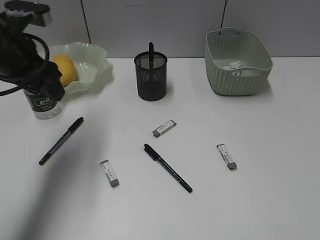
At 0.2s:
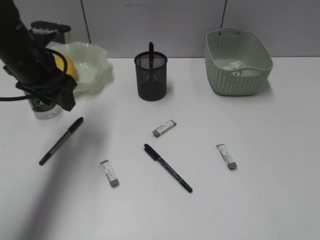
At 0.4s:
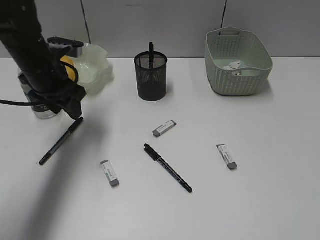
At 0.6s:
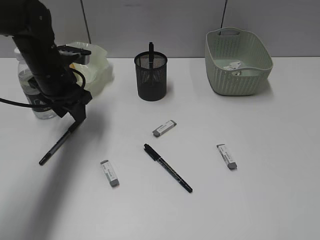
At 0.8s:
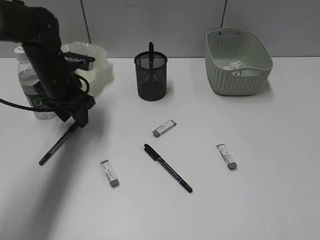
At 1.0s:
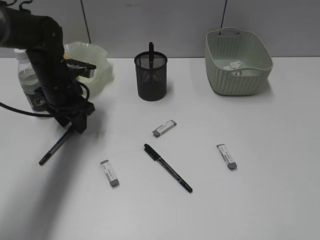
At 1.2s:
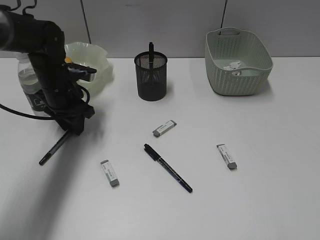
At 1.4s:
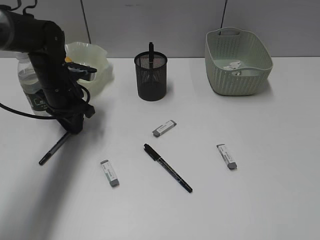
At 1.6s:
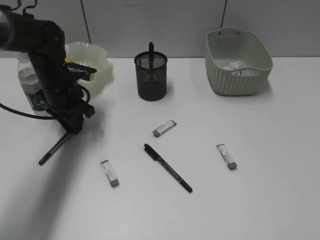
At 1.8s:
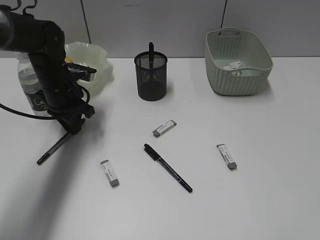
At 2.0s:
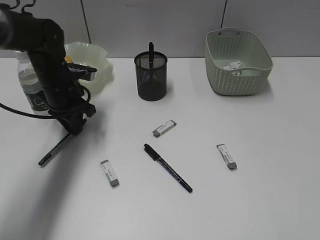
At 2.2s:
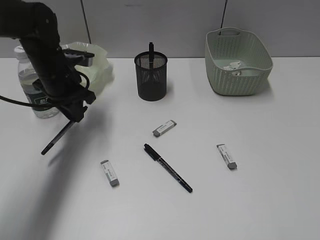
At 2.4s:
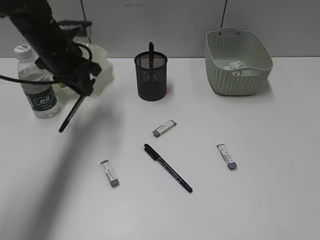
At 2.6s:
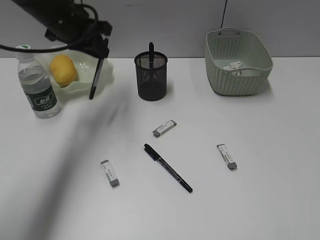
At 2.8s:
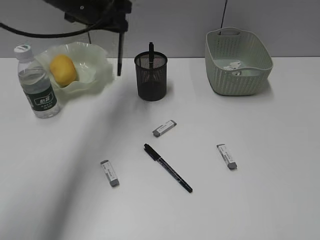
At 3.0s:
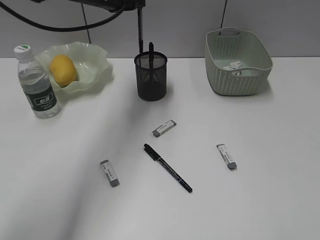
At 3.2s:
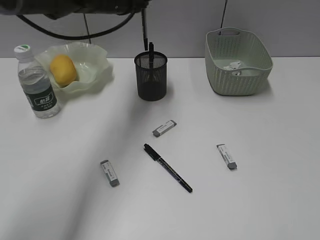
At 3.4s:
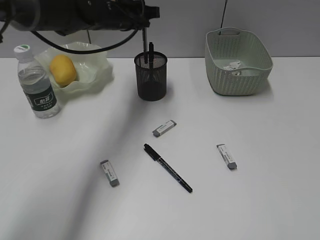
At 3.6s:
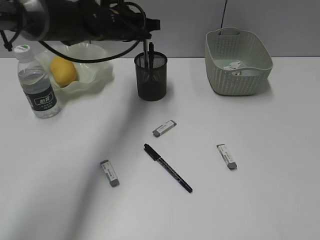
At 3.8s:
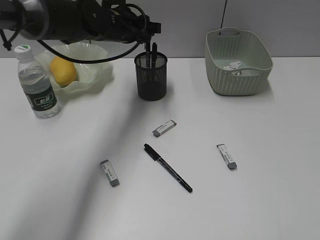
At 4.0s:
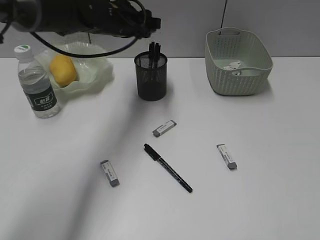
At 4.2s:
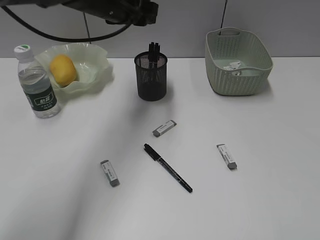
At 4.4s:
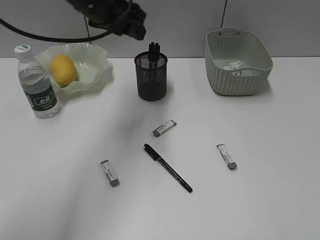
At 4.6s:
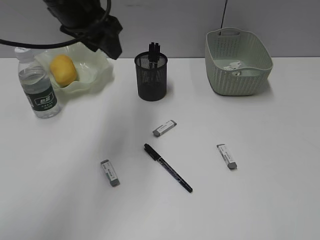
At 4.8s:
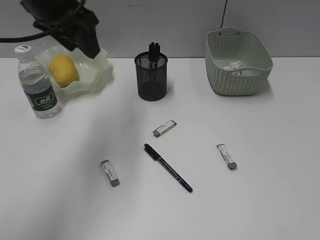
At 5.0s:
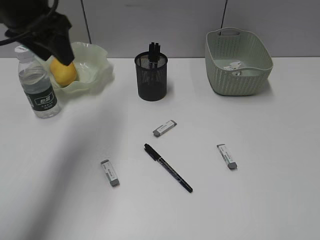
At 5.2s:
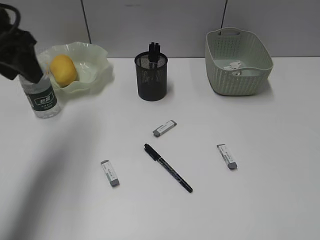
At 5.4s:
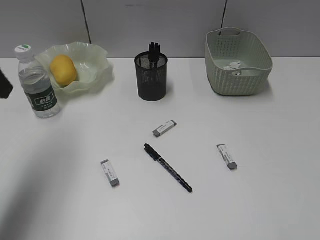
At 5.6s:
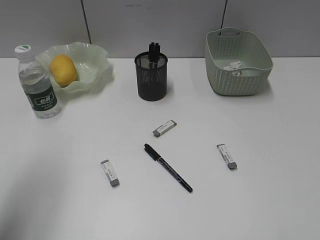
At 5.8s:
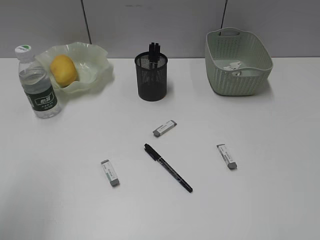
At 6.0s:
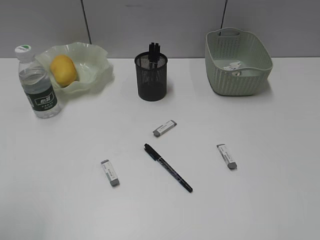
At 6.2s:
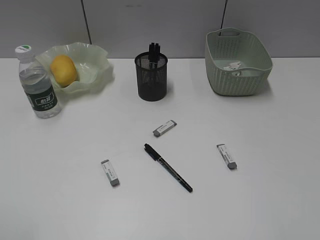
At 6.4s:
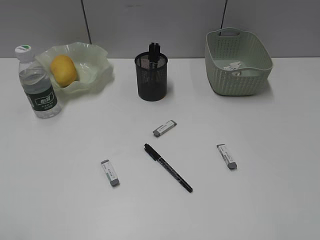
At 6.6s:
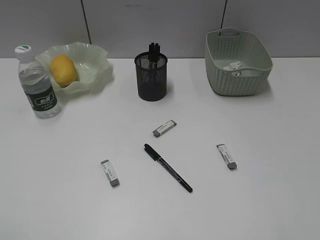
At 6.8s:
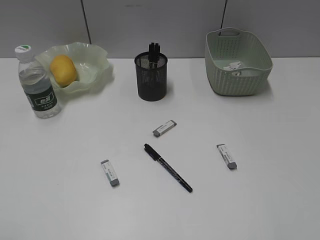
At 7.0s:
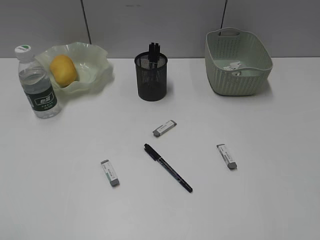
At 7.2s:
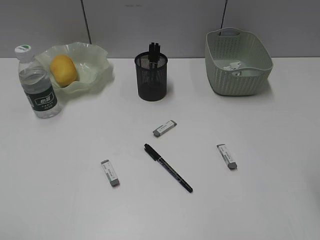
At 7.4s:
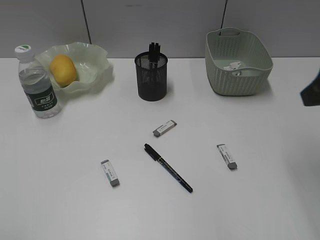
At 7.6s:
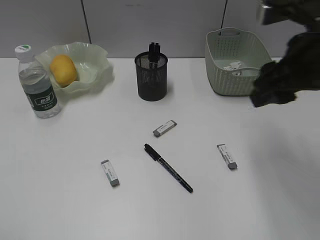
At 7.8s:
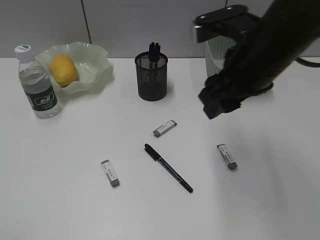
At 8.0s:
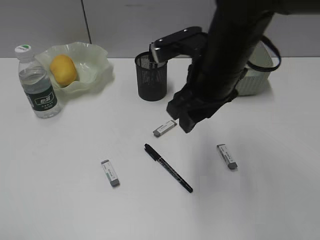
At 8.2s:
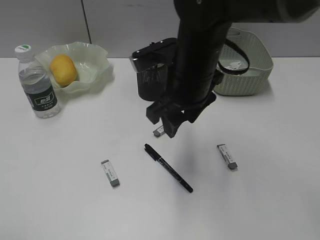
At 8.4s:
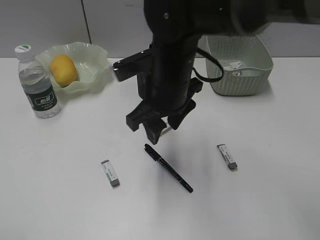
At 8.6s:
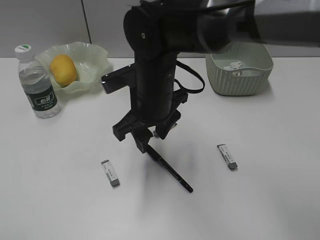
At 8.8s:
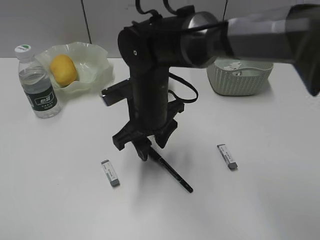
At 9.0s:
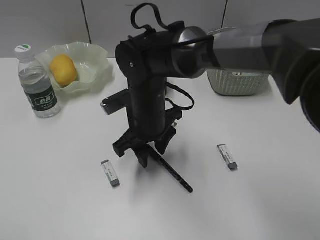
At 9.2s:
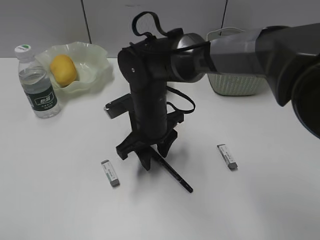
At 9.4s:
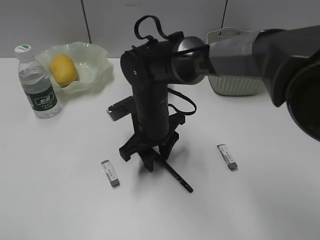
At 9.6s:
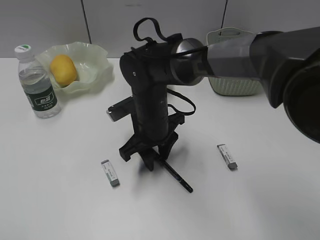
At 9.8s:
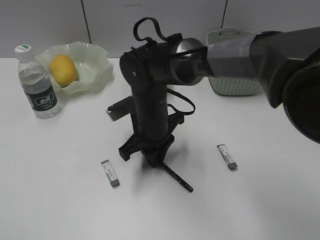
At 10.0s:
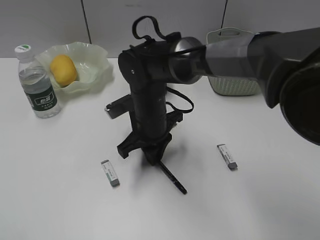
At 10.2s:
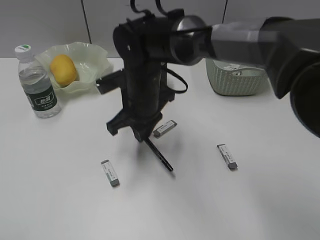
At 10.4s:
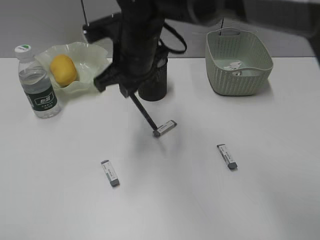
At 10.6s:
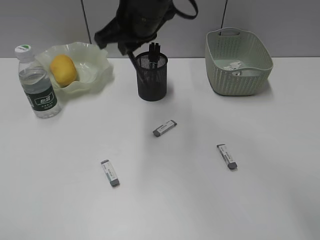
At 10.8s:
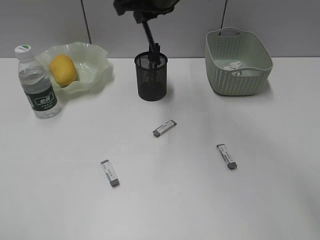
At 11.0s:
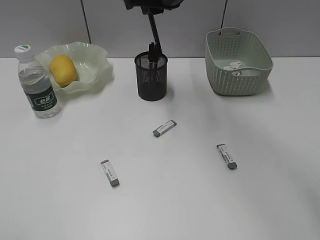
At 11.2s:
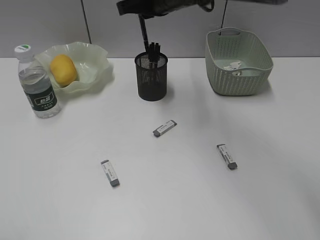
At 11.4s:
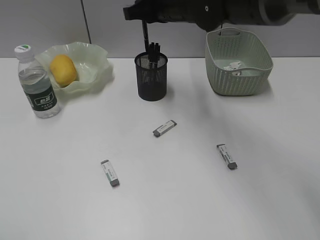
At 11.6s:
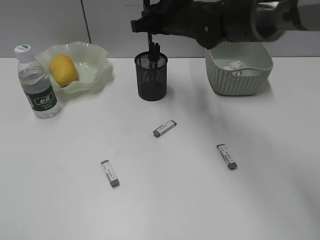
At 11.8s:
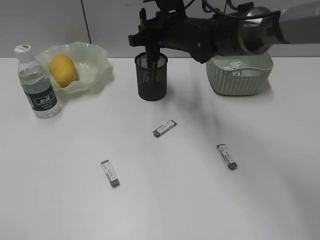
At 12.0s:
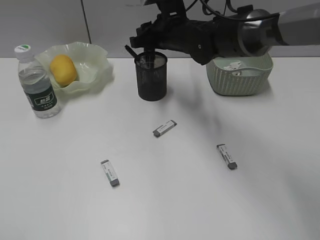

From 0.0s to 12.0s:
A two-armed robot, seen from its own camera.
Step, from 2.0s to 3.8s: Place the black pen in pen holder with left gripper.
Step, from 4.0s to 9.8s: Grasp the black pen with right gripper.
From 0.0s to 1.6s: The left gripper is displaced downward and forward by some 15 cm, and closes up.
From 1.6s to 3.0s: The left gripper moves upward and to the right, about 20 cm.
From 3.0s to 4.4s: The left gripper moves some 5 cm downward and comes back, and opens its fingers.
From 4.4s to 6.0s: The left gripper shifts about 40 cm backward and to the left.
From 6.0s to 7.6s: The right gripper travels forward and to the left by roughly 25 cm.
From 7.6s to 9.0s: The right gripper heads to the left and downward, covering about 25 cm.
From 9.0s to 10.4s: The right gripper heads upward, covering about 10 cm, and closes up.
From 10.4s to 12.0s: The right gripper moves forward and to the right, roughly 10 cm, moves some 10 cm upward and comes back, and opens up.

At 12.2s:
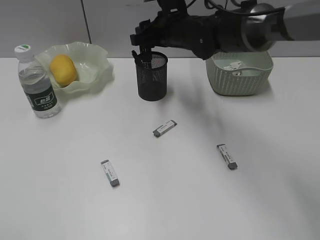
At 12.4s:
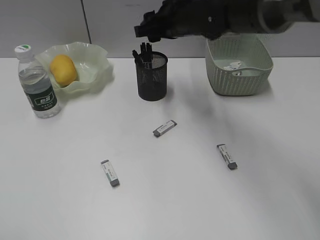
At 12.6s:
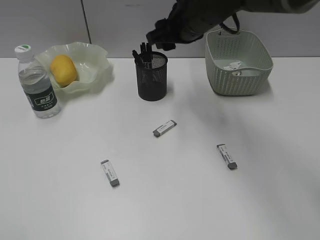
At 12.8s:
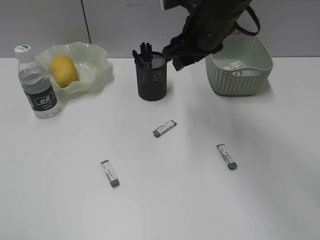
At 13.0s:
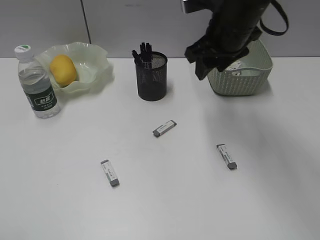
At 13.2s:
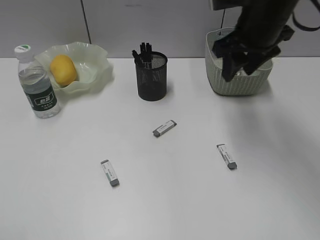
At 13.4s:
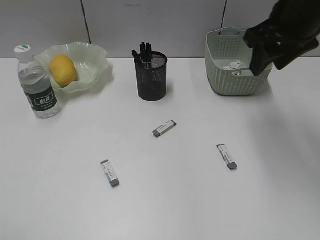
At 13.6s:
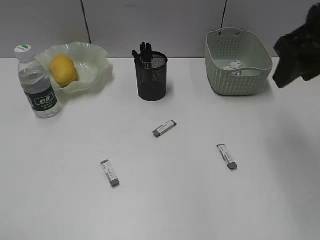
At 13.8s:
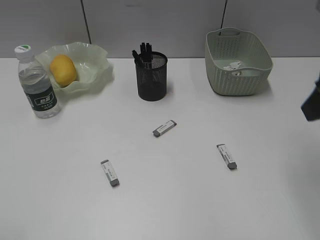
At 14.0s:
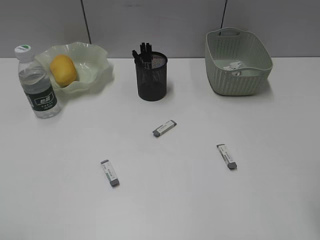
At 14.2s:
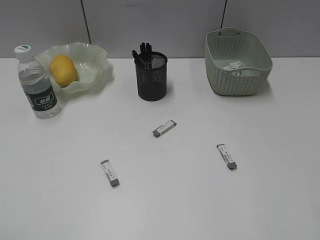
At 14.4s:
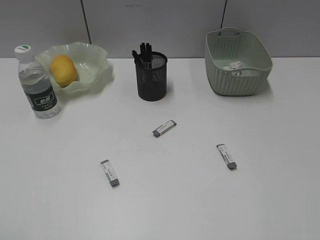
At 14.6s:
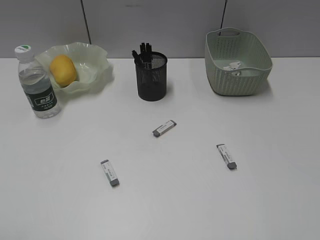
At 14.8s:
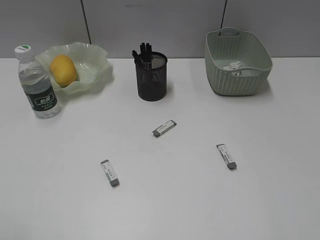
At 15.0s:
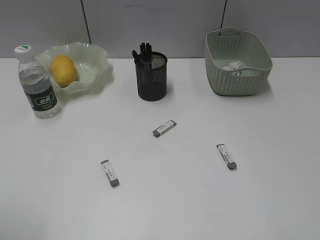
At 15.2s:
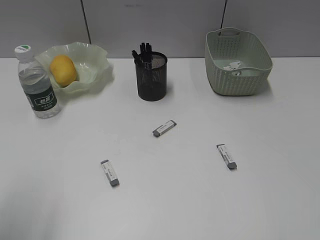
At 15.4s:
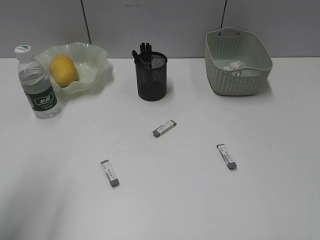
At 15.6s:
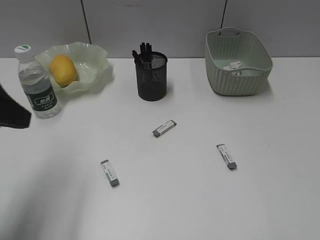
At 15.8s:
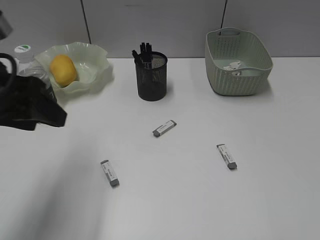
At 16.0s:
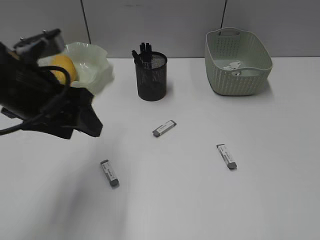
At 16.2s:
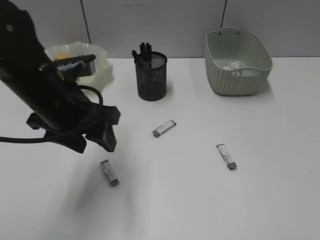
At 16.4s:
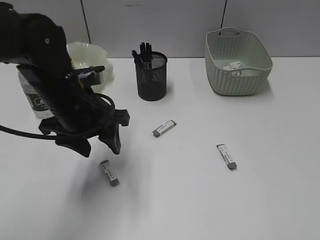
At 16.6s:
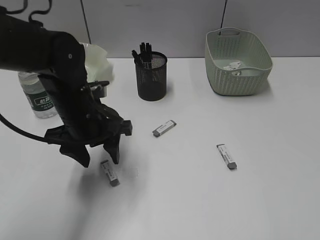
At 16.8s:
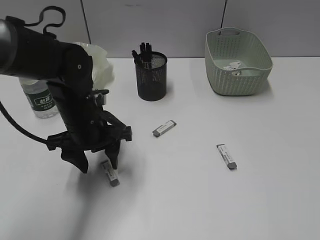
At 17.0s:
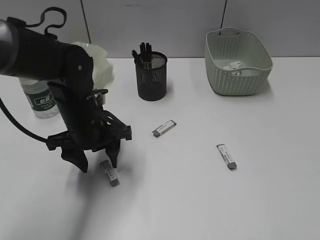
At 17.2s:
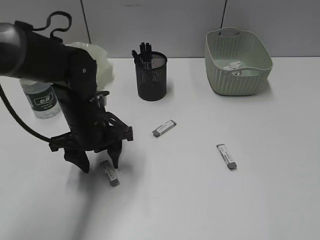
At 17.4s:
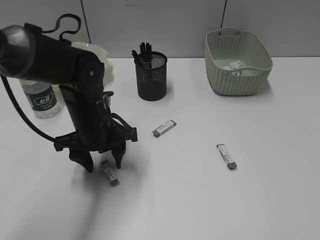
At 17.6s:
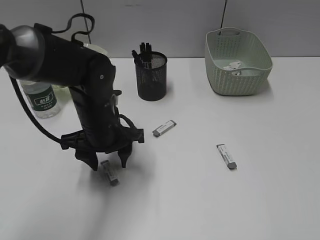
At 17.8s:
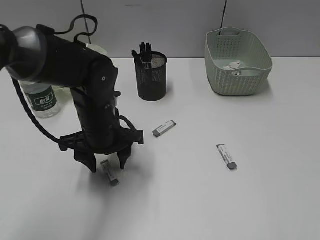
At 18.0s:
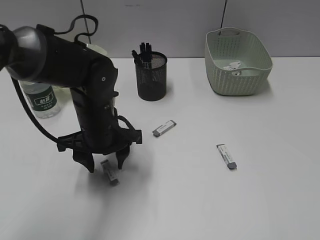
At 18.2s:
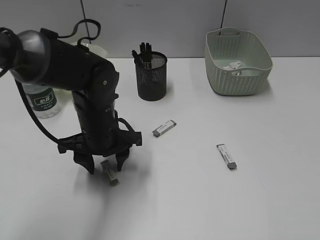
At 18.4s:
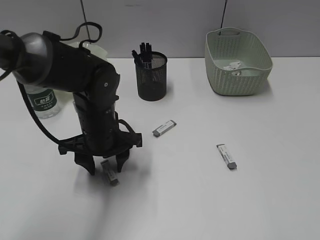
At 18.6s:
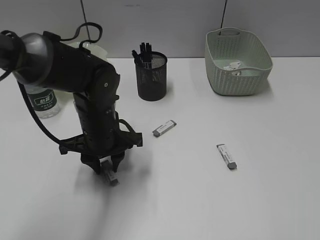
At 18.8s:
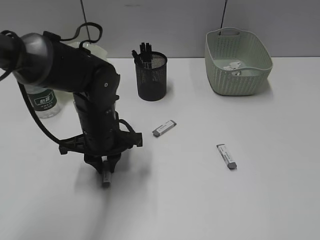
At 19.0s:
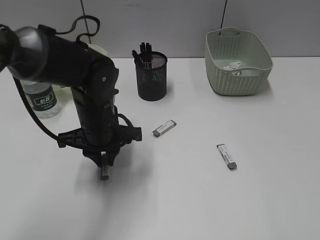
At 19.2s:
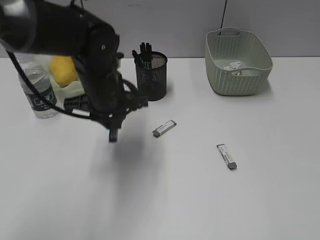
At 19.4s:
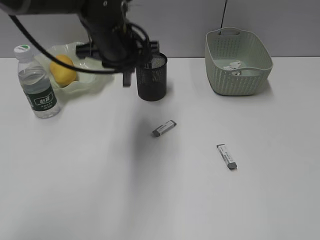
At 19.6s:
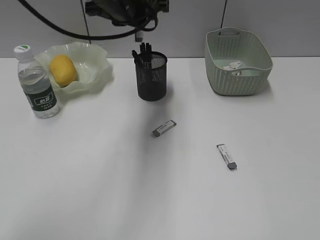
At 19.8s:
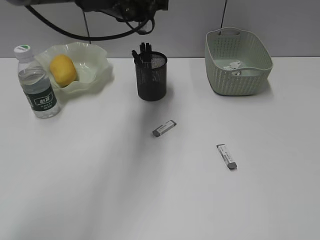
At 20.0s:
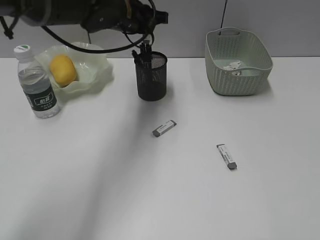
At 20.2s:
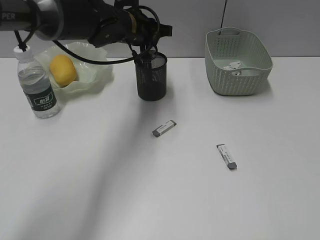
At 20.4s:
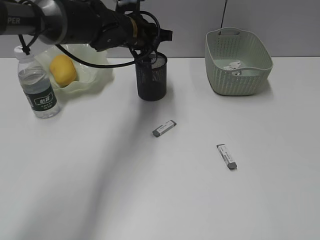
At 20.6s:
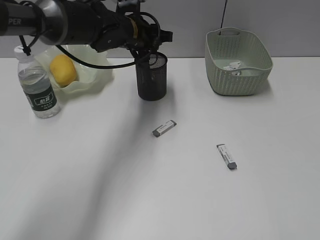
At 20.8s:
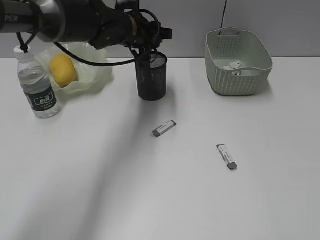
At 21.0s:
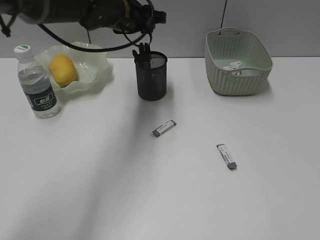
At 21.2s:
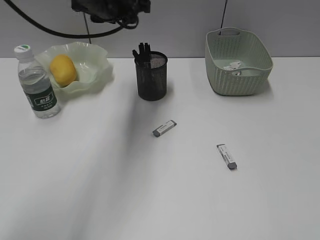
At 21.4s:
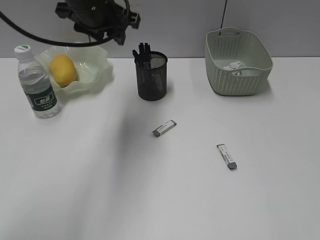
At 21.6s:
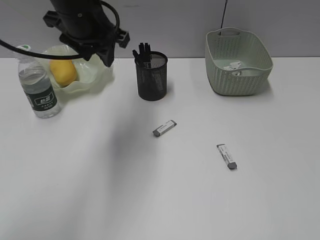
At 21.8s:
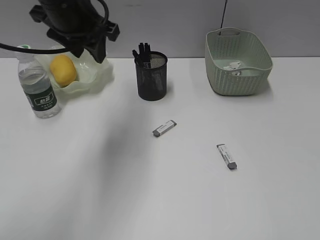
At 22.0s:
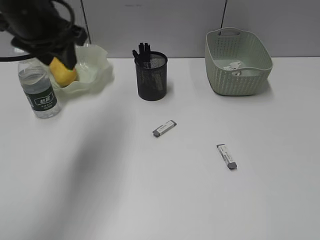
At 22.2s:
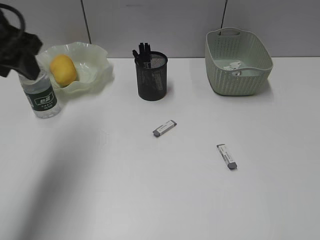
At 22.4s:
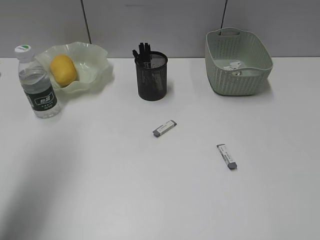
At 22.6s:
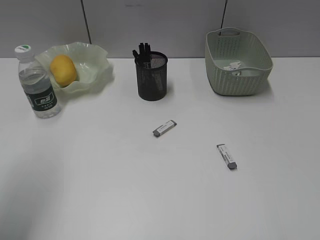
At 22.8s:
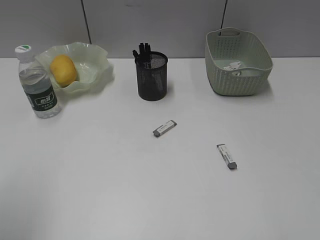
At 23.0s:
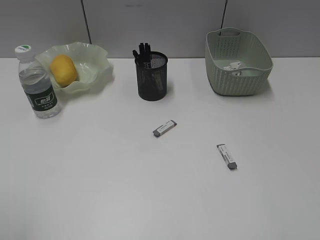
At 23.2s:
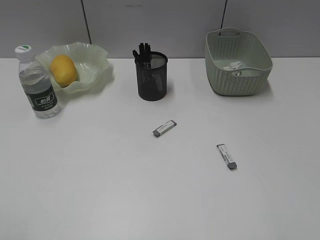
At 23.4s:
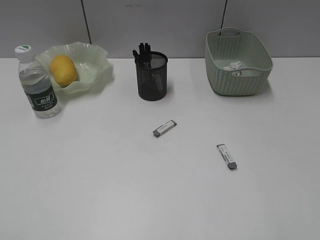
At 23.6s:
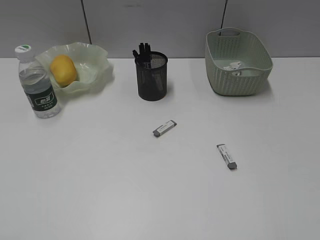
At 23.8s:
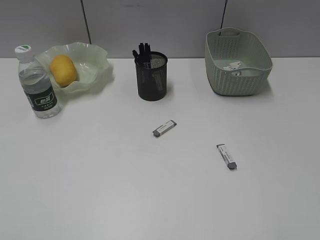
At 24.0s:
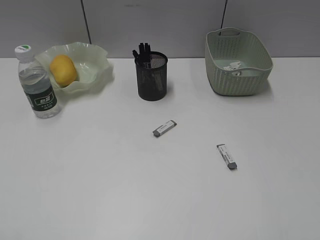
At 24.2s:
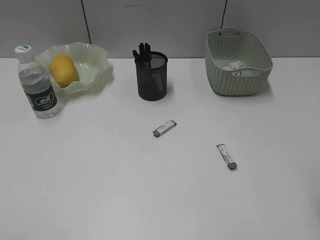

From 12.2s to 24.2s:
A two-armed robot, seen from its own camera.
Step, from 12.6s to 18.8s: Grasp the eraser with left gripper.
Step, from 19.0s to 20.8s: Place the eraser in pen holder with left gripper.
From 12.2s to 13.8s: The right gripper travels backward, to the right and upward by some 35 cm.
From 13.8s to 15.2s: The right gripper shifts some 20 cm backward. The left gripper goes approximately 10 cm forward.
From 15.2s to 16.6s: The left gripper goes roughly 30 cm forward, to the right and downward.
From 16.6s to 18.2s: The grippers stay close to where they were, moving slightly.
From 18.2s to 19.8s: The left gripper shifts some 20 cm upward and forward, and closes up.
From 19.8s to 21.2s: The left gripper moves about 5 cm downward and comes back, and opens.
From 21.2s to 22.6s: The left gripper travels backward and to the left by about 30 cm.
From 22.6s to 24.2s: The left gripper goes approximately 20 cm backward.
